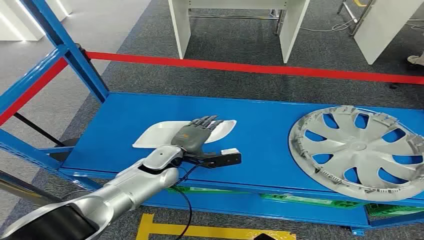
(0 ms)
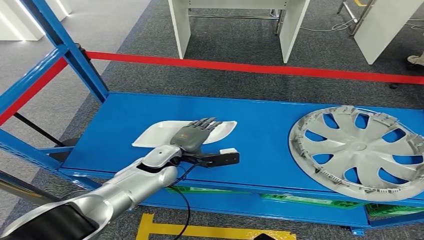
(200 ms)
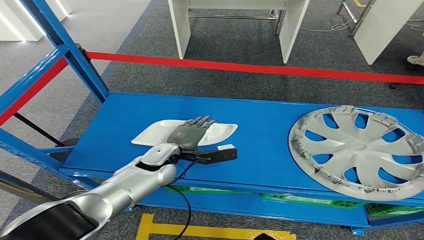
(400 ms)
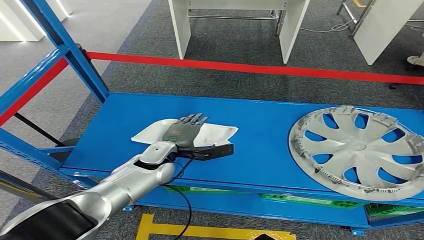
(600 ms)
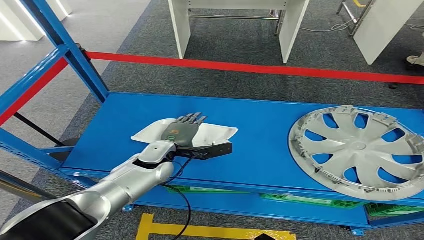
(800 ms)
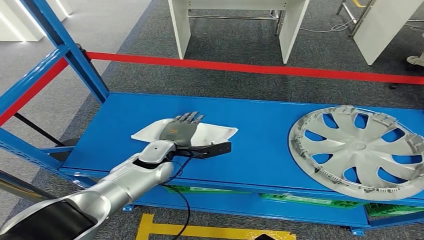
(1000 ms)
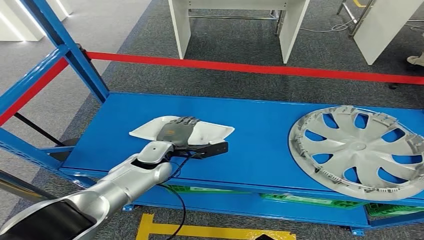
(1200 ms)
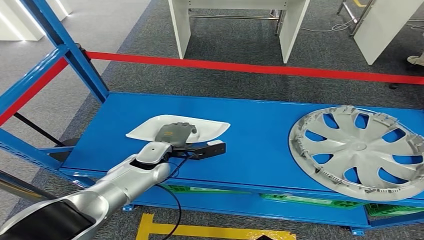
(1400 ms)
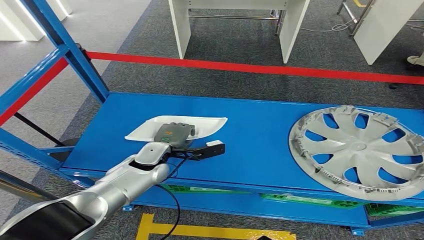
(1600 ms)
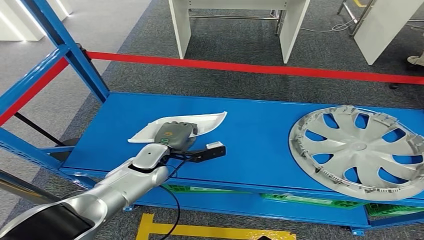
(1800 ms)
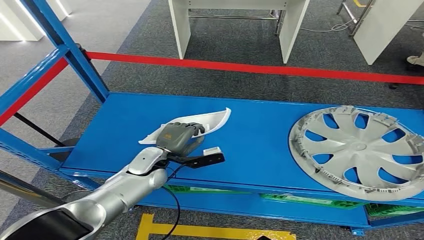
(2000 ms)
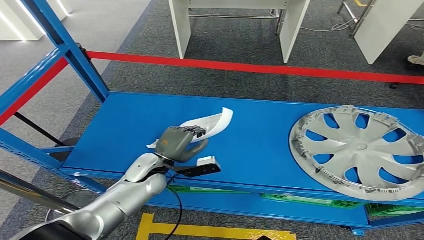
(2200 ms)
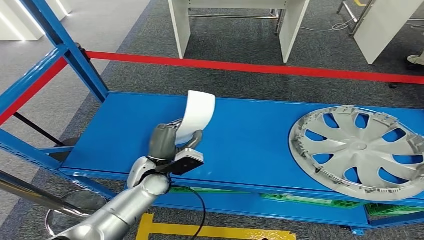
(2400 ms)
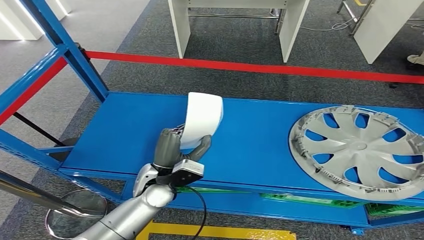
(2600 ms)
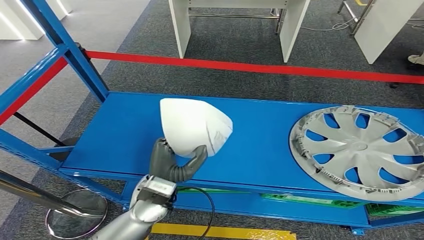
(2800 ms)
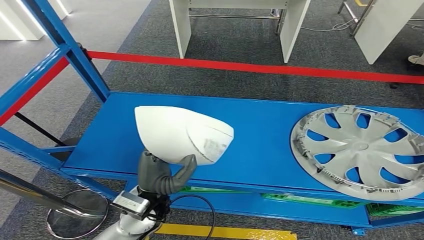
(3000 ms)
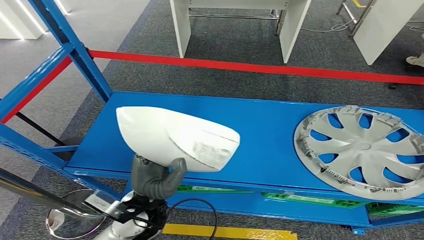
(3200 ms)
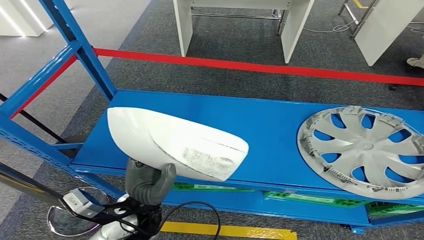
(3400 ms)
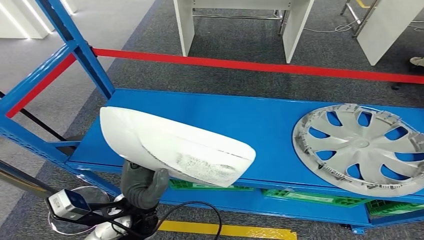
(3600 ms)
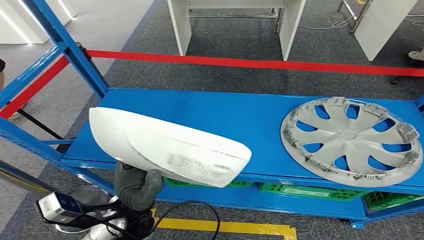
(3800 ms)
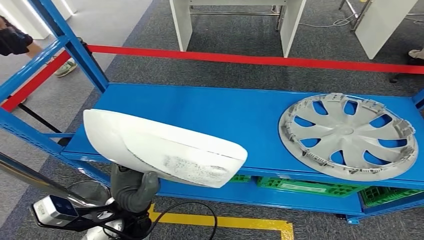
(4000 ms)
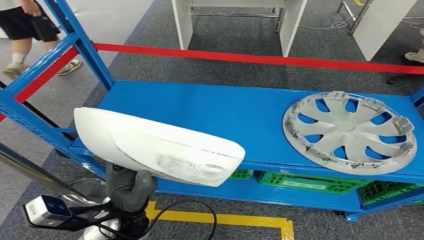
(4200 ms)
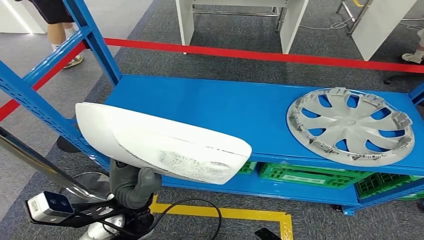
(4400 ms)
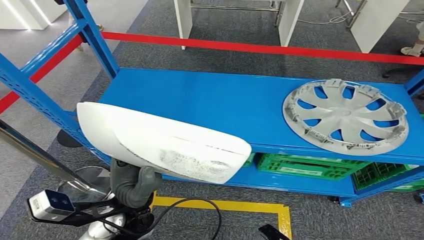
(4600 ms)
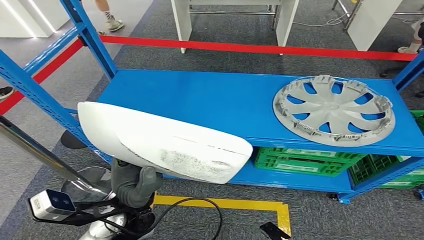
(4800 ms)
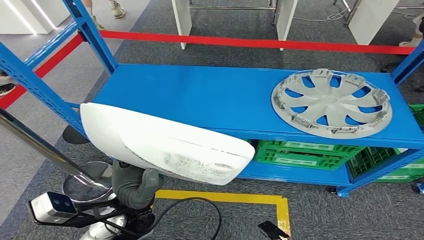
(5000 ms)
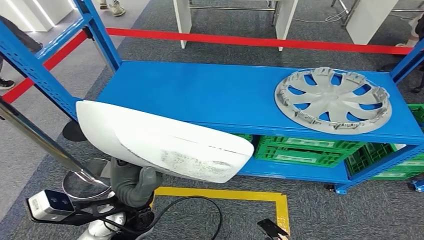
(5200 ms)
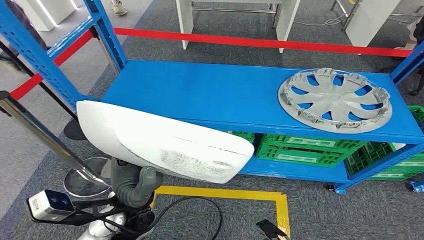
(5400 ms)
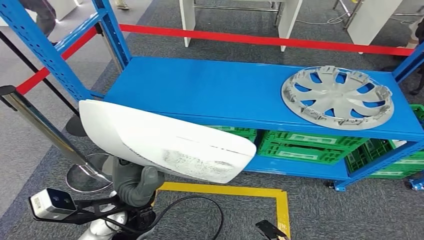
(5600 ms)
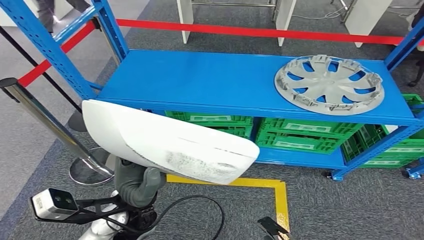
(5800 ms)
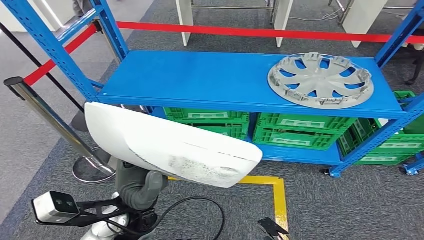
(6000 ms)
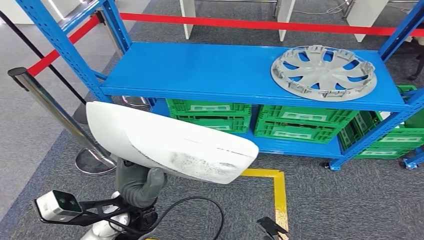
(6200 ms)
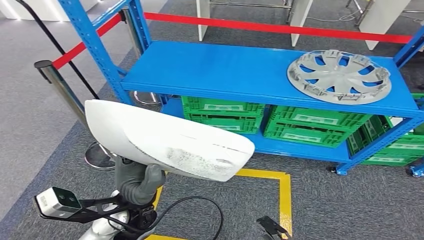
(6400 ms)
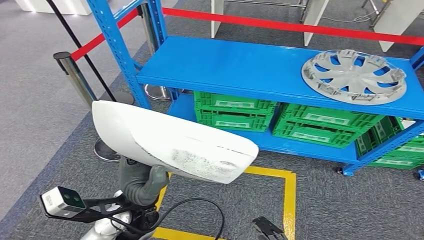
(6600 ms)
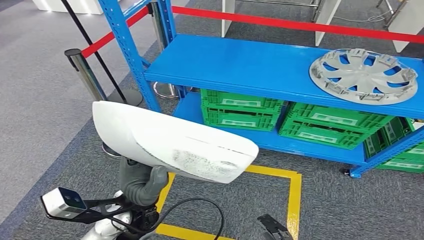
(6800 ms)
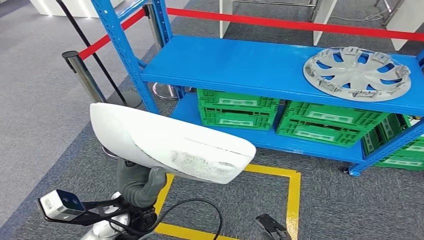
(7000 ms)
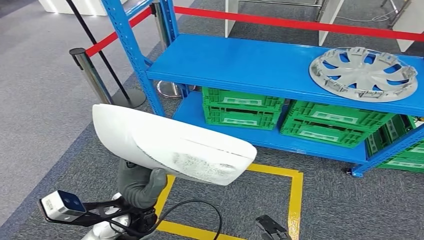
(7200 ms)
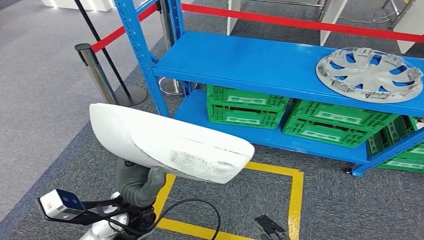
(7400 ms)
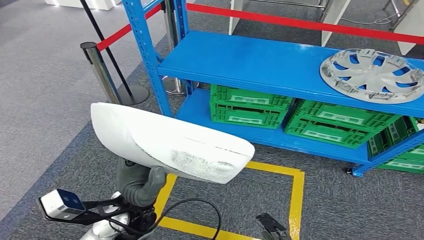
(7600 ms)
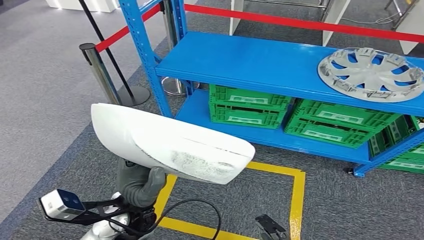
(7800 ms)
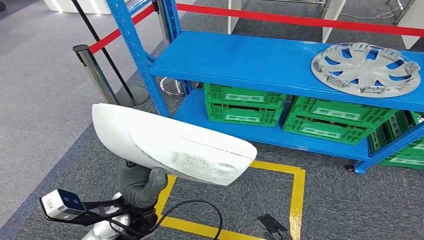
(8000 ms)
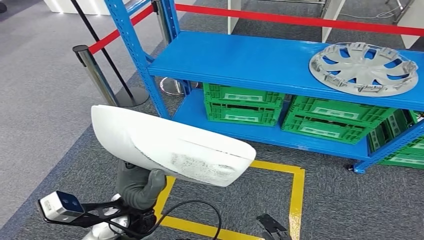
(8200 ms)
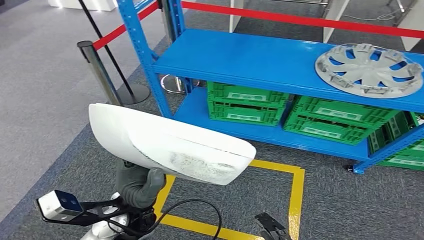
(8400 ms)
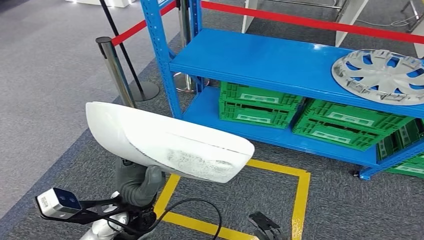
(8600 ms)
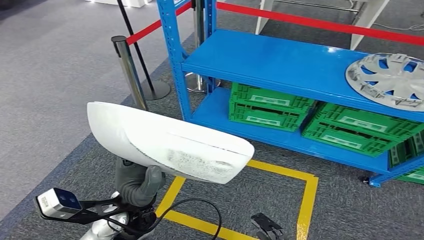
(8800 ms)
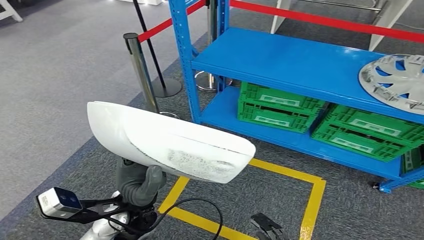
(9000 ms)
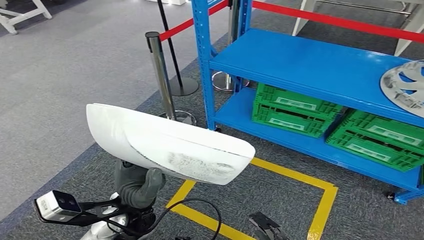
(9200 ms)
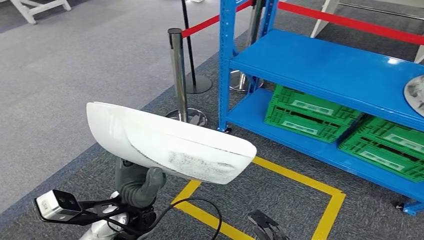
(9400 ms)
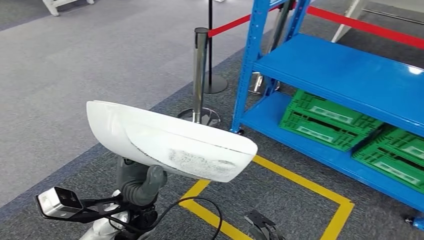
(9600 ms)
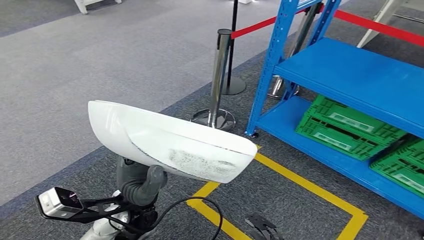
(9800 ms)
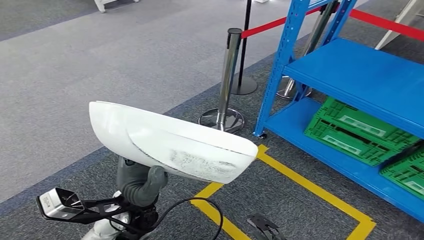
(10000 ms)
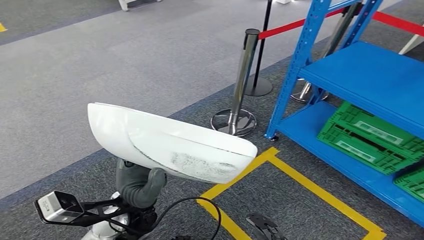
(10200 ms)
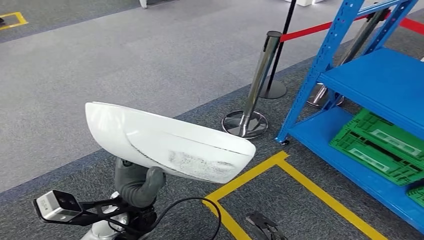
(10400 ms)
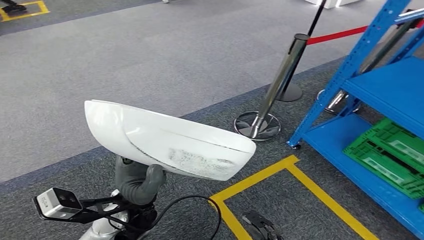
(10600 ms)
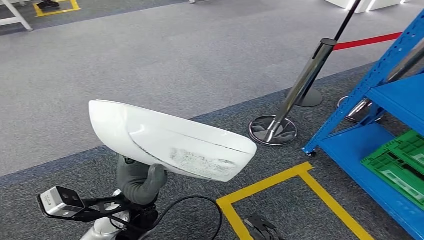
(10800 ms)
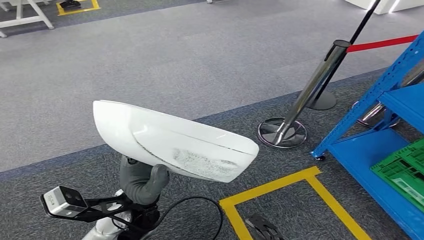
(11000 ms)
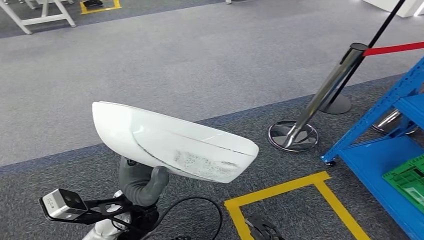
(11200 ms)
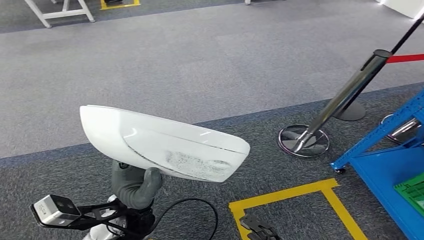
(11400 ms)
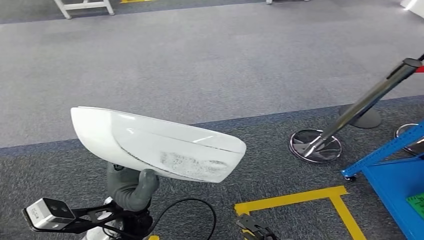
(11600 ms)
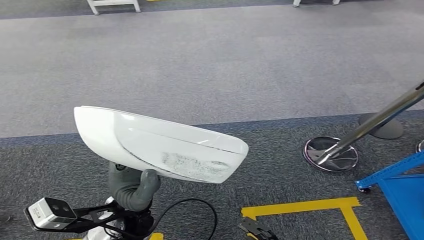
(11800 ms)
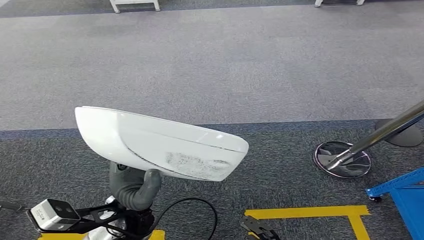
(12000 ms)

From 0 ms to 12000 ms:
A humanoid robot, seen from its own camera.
Step, from 0 ms to 6000 ms: Pick up the small component from the shelf.
From 1600 ms to 3000 ms: The left hand is displaced backward by about 15 cm.

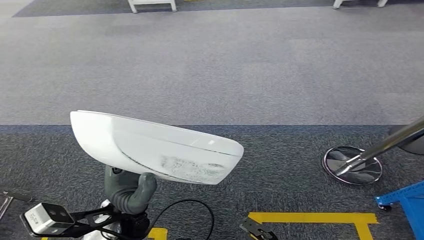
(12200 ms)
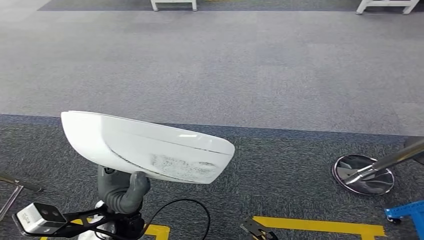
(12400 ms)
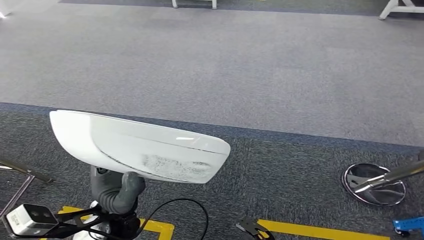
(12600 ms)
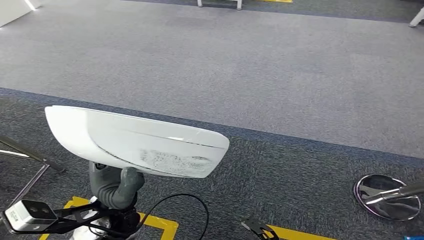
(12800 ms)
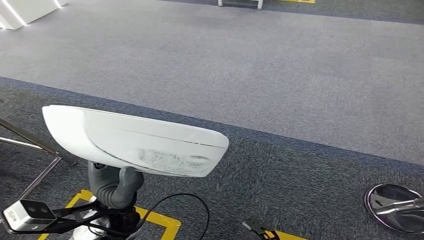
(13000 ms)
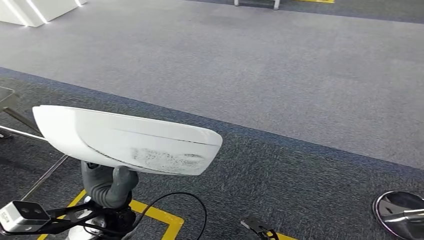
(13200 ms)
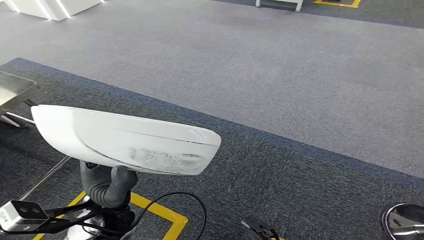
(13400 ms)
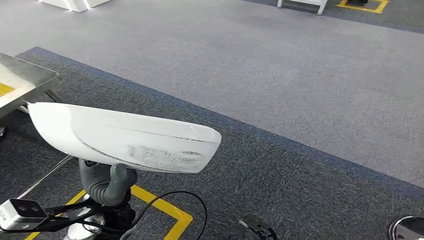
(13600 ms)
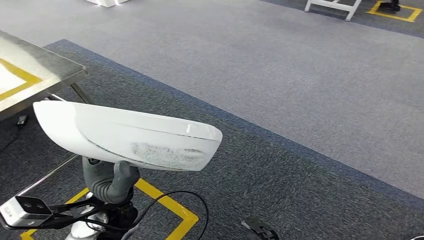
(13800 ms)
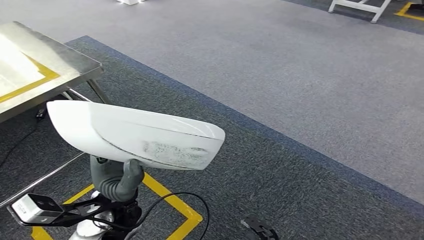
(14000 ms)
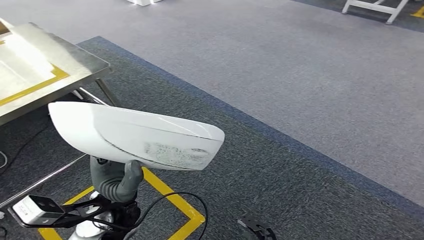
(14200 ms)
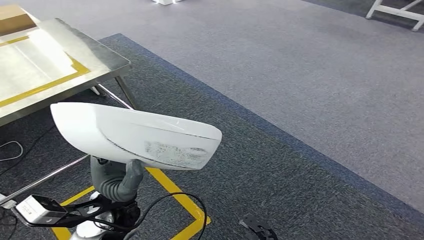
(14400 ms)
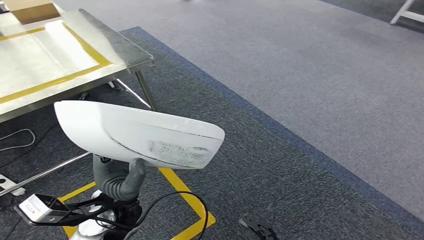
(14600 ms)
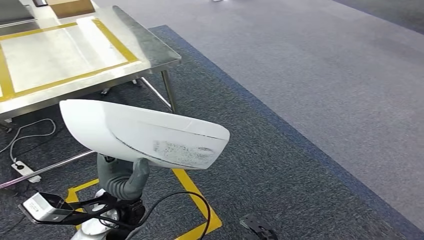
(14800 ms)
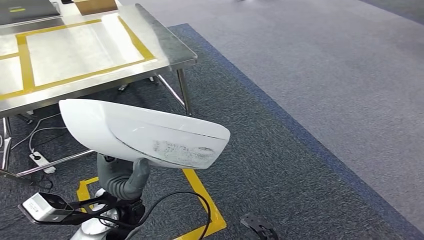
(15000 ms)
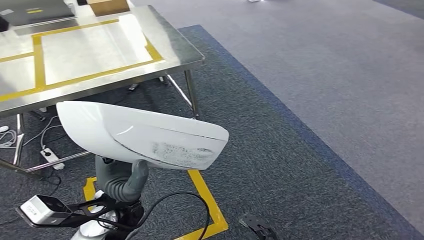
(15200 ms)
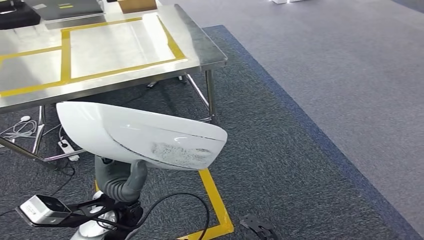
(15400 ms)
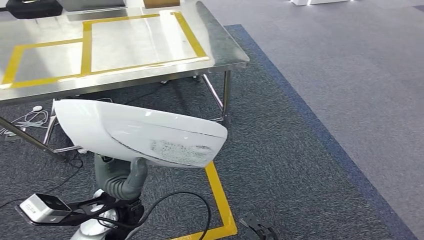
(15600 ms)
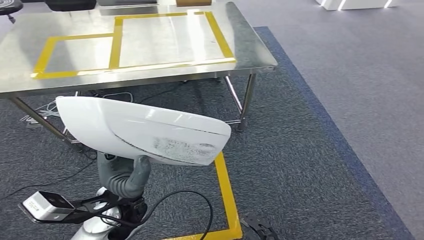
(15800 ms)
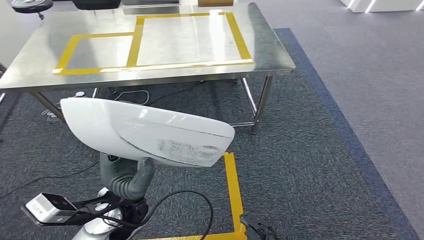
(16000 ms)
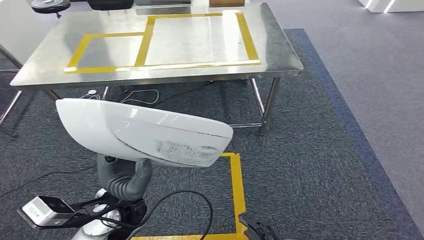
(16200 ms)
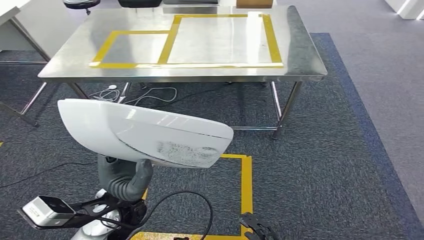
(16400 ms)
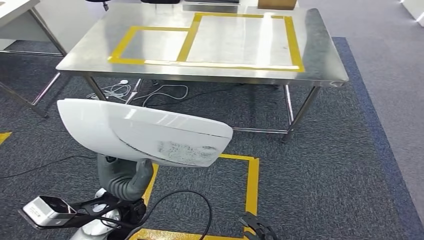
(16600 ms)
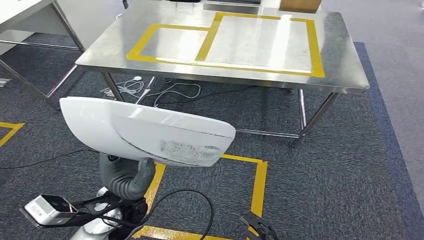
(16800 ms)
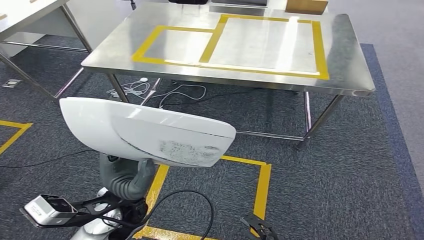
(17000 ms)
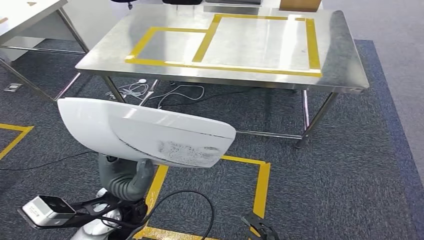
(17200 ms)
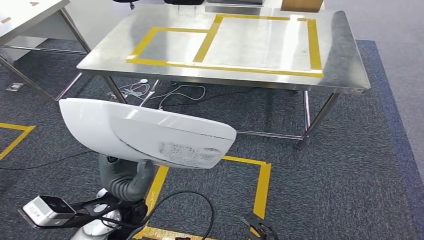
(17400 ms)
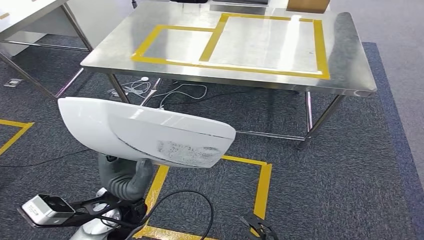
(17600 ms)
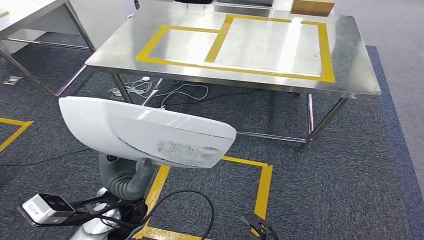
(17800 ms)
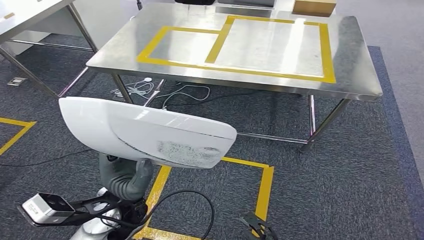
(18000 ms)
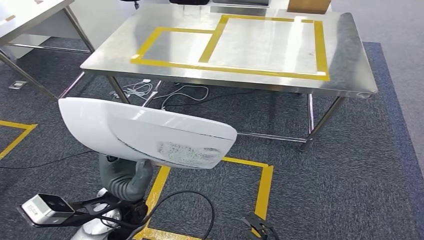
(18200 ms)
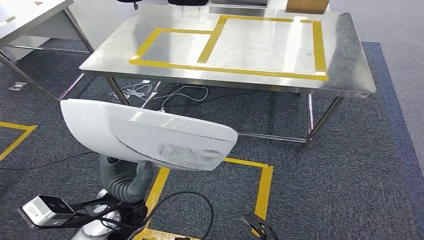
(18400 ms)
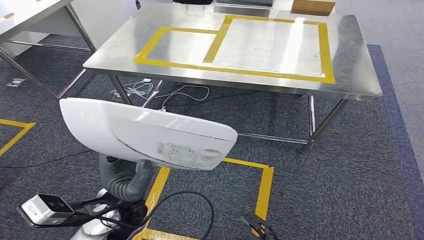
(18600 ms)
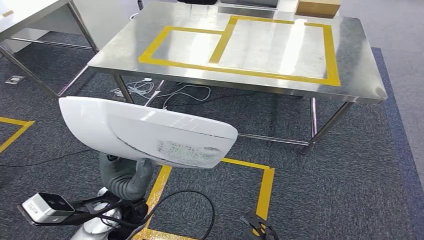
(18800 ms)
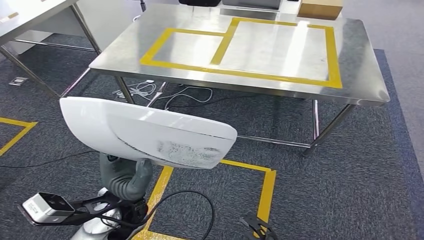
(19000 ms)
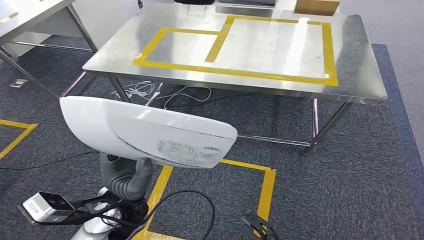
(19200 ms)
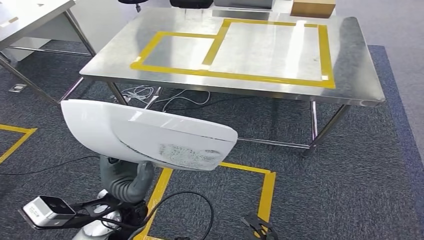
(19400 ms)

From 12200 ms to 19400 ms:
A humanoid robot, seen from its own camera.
From 18000 ms to 19400 ms: Both hands stay put.
